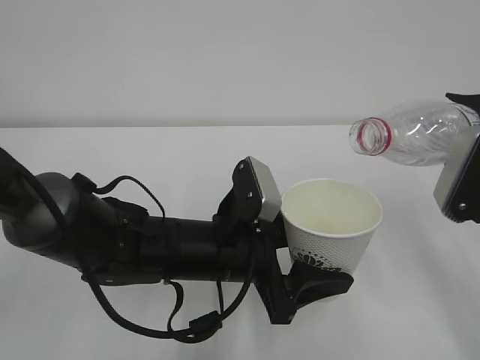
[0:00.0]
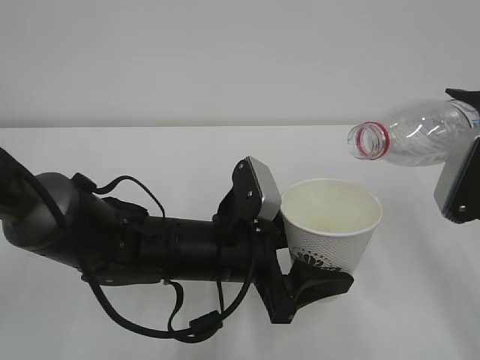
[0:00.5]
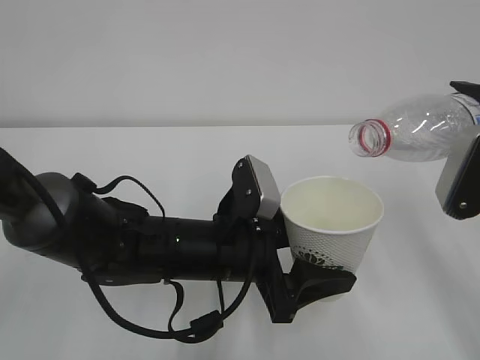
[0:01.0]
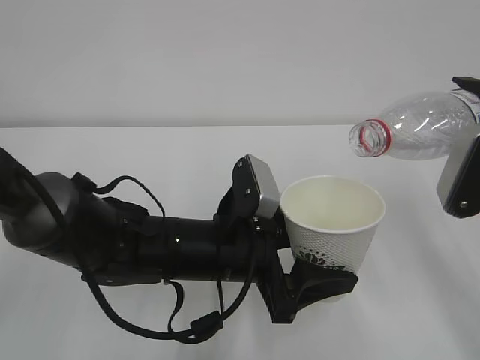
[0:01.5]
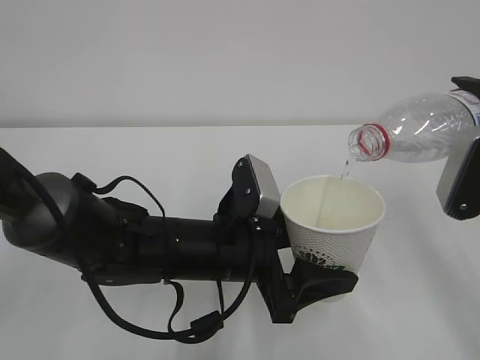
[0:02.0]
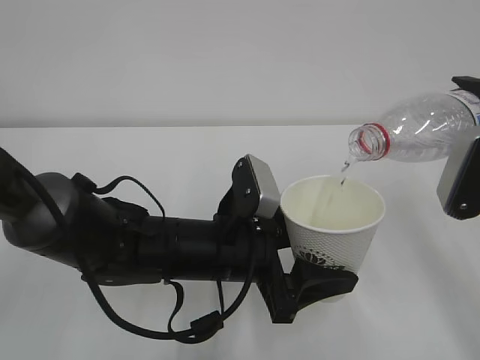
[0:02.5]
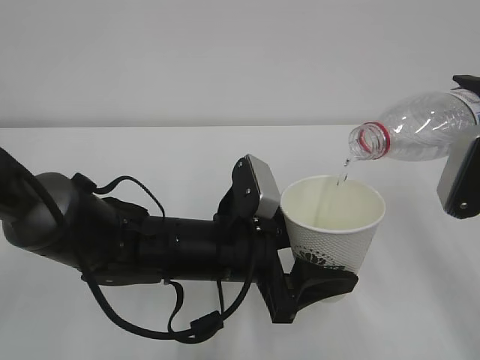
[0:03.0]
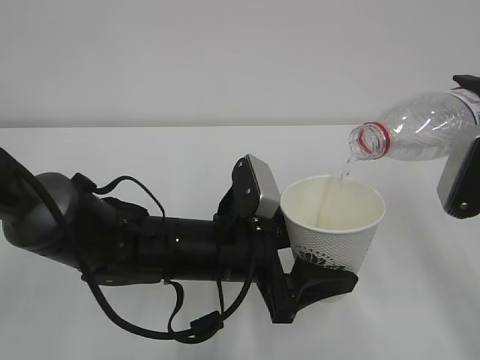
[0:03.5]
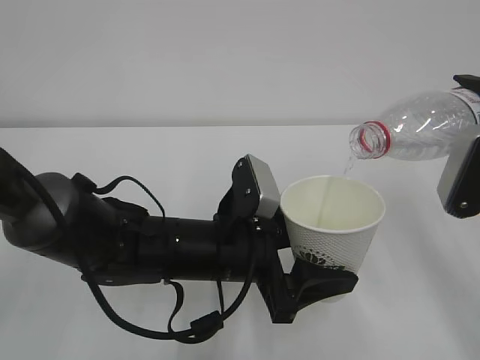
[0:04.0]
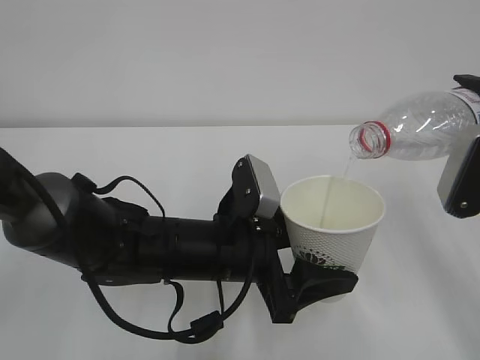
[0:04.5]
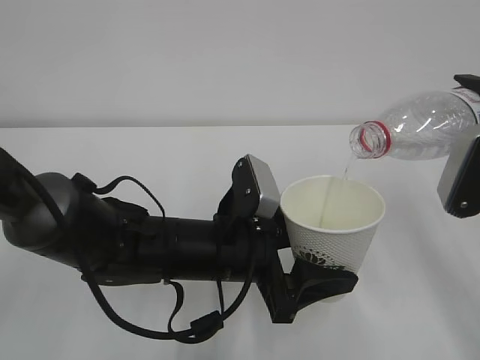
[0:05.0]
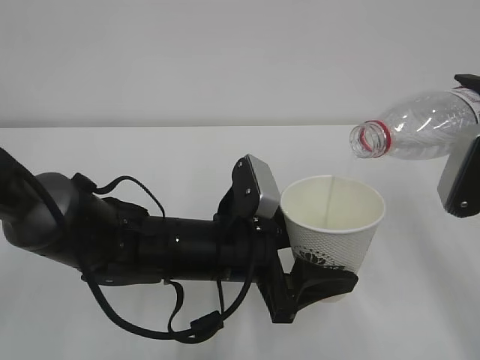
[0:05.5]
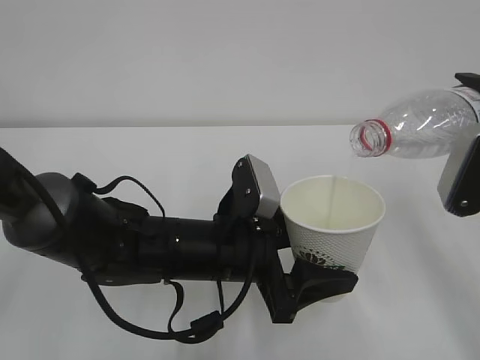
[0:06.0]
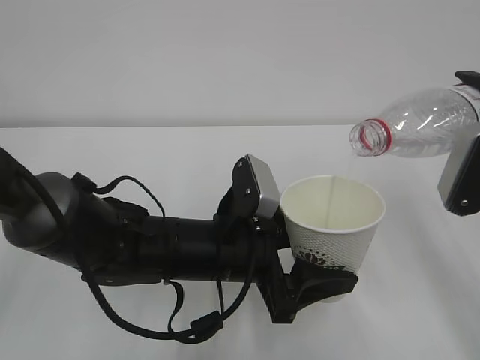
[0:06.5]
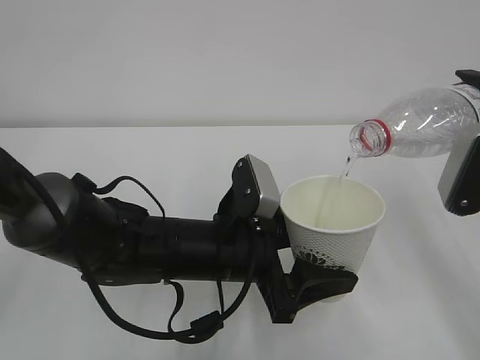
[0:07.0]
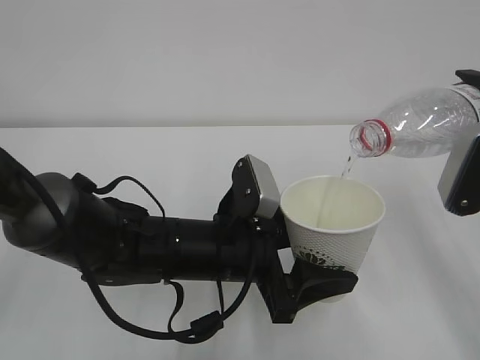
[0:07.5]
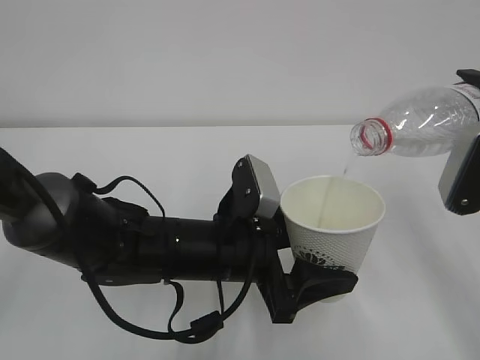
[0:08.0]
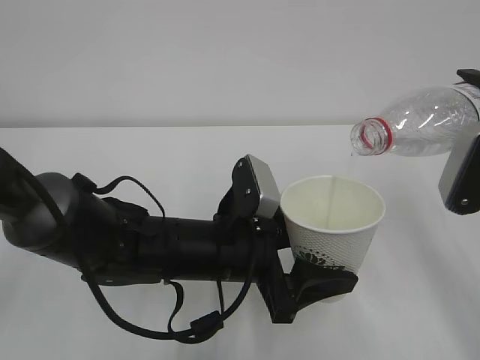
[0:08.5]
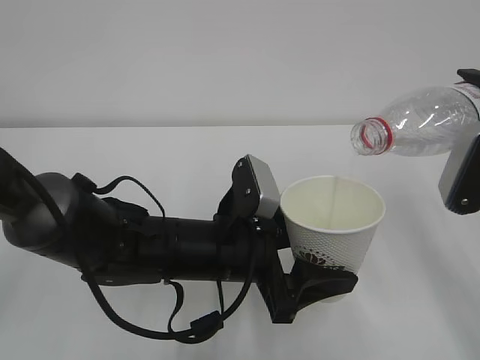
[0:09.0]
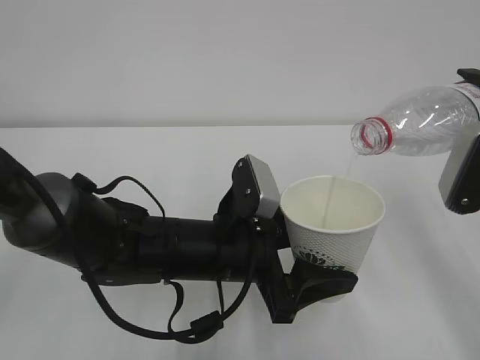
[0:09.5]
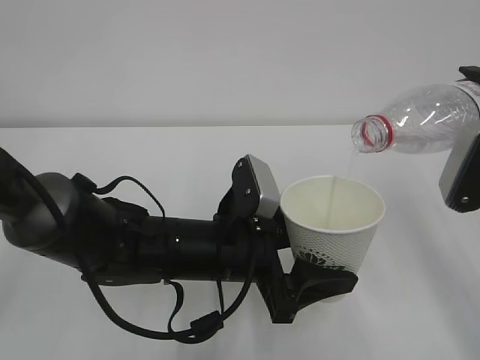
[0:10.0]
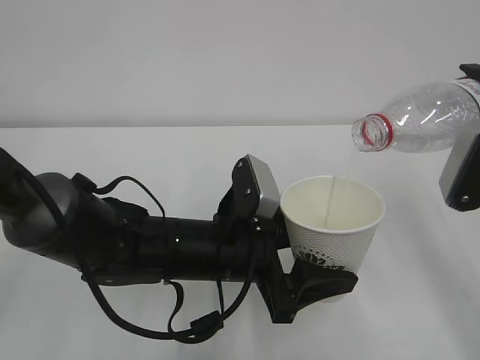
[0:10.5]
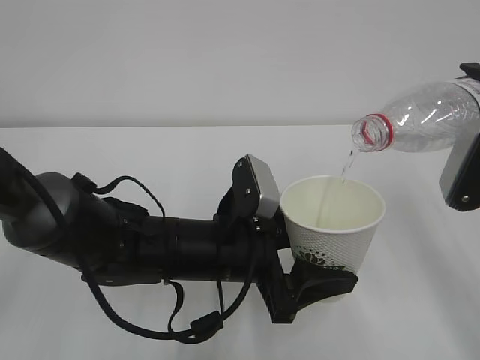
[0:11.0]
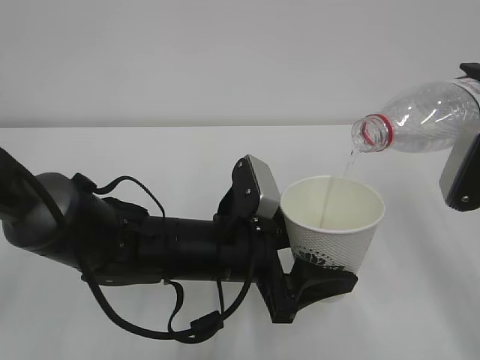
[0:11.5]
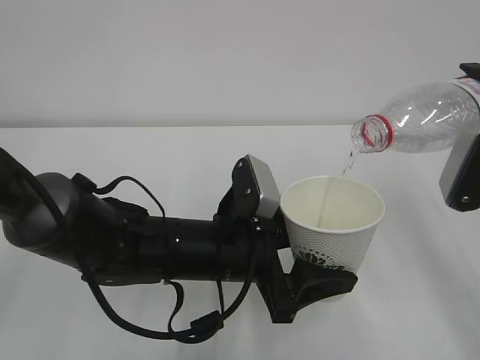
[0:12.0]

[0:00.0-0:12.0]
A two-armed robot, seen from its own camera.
0:00.0 to 0:02.0: The grippers move only a little.
0:02.0 to 0:12.0: The two grippers keep their place.

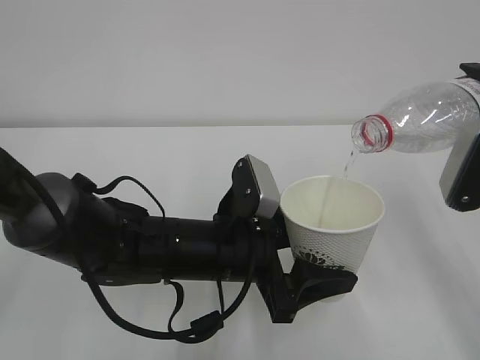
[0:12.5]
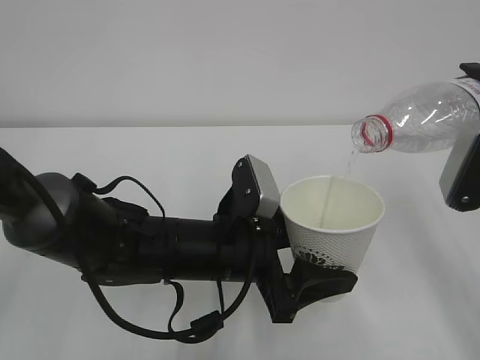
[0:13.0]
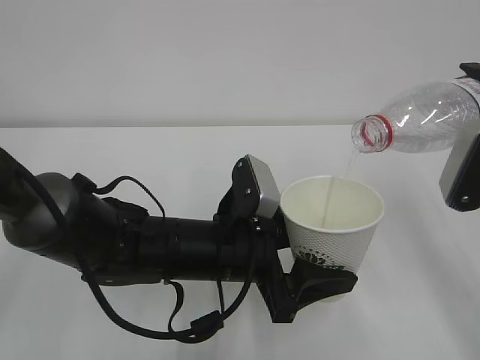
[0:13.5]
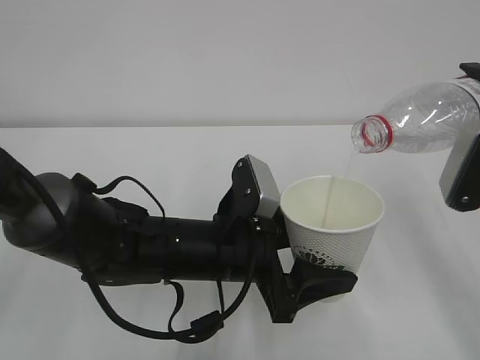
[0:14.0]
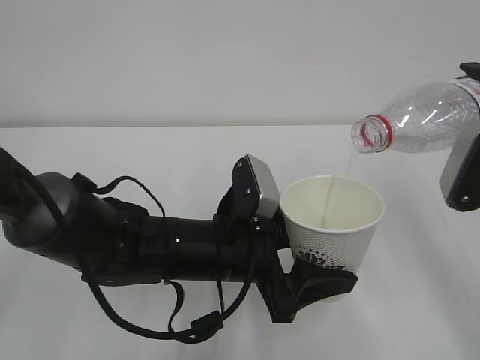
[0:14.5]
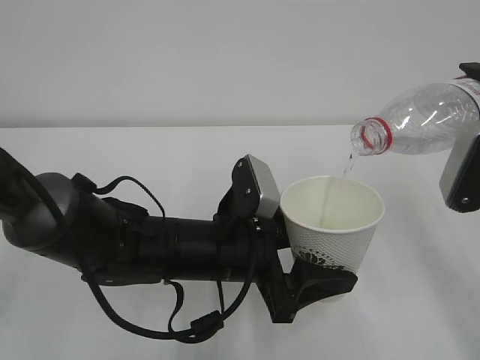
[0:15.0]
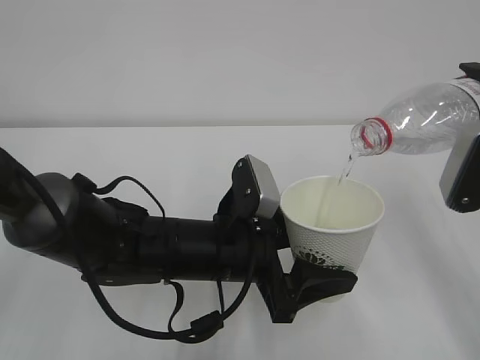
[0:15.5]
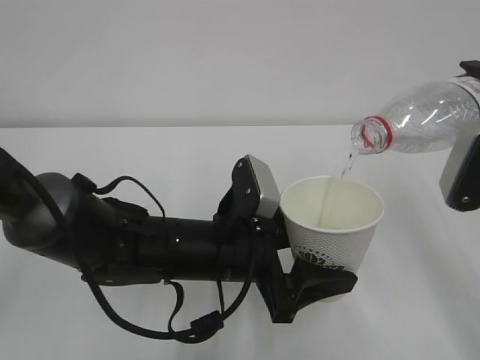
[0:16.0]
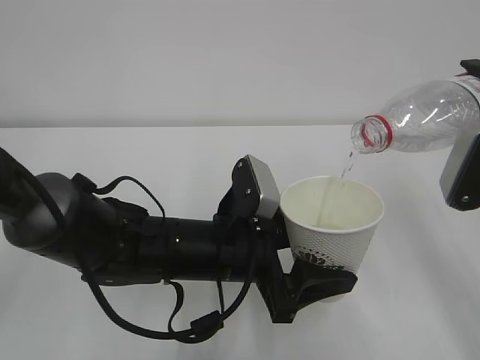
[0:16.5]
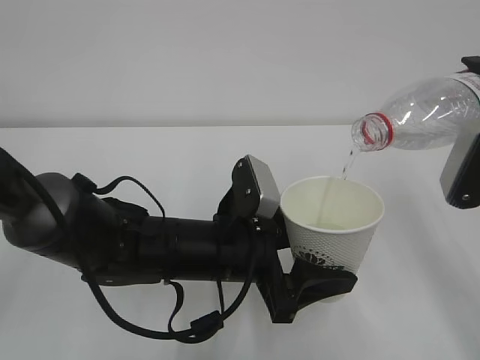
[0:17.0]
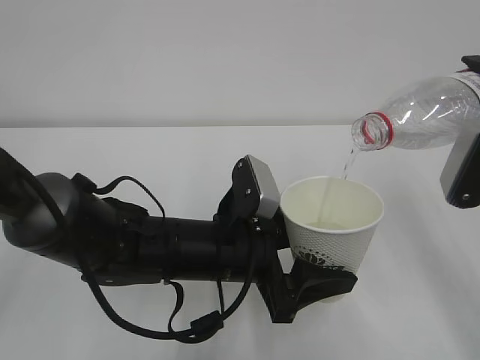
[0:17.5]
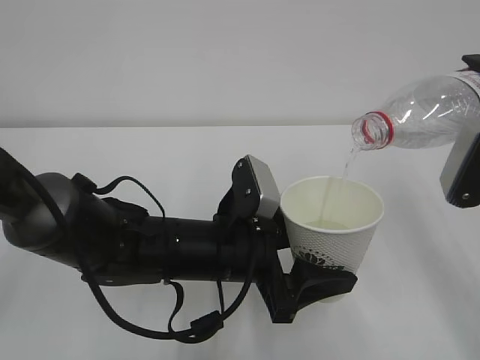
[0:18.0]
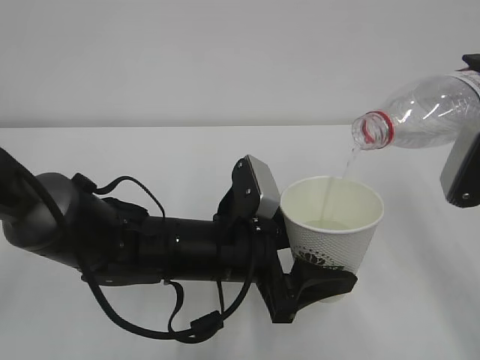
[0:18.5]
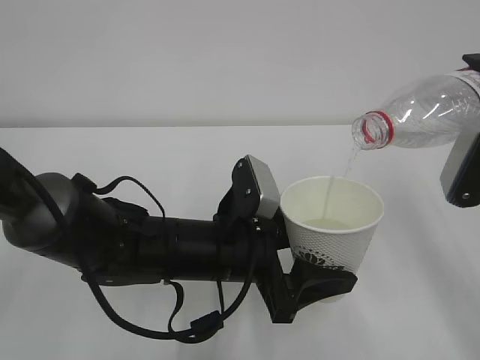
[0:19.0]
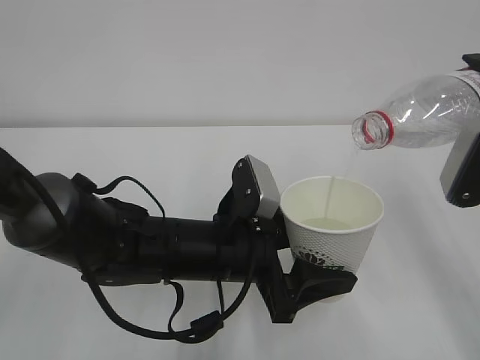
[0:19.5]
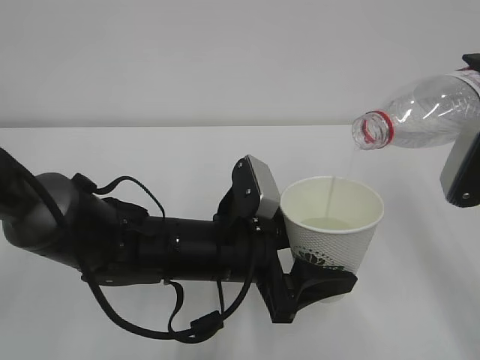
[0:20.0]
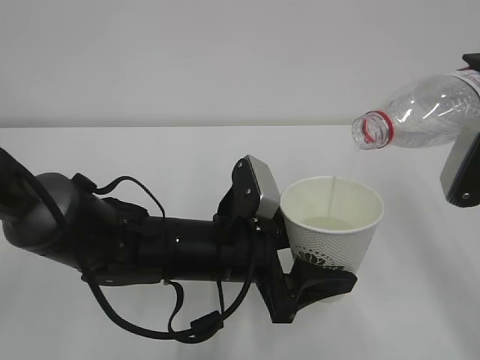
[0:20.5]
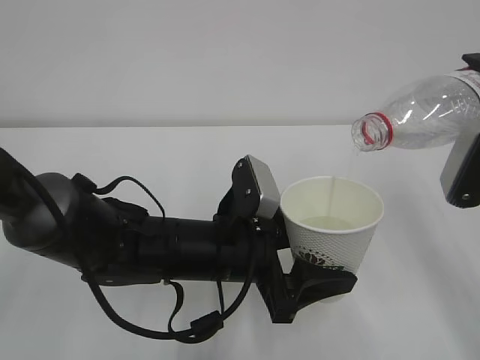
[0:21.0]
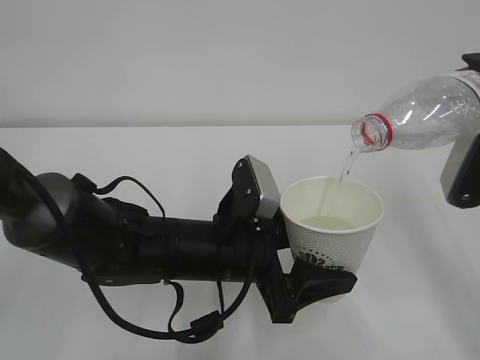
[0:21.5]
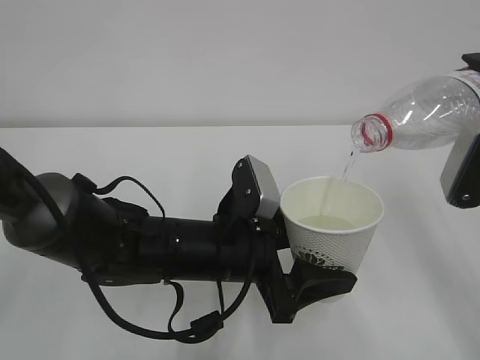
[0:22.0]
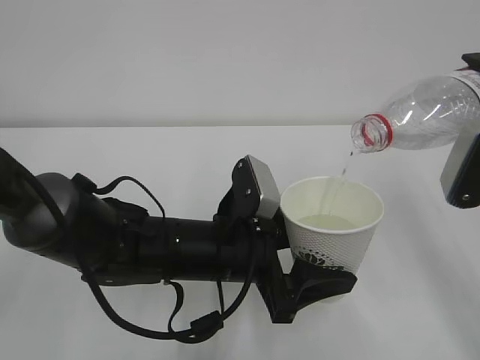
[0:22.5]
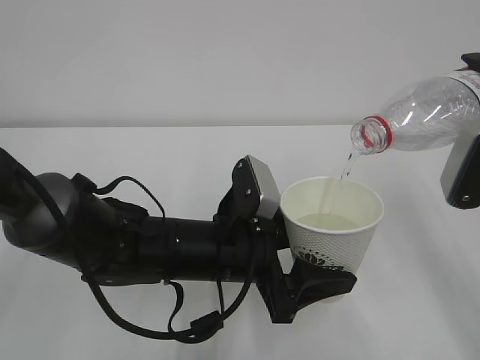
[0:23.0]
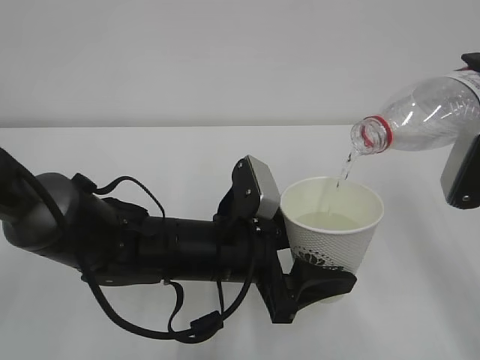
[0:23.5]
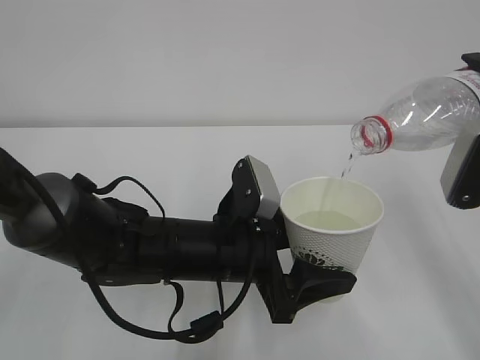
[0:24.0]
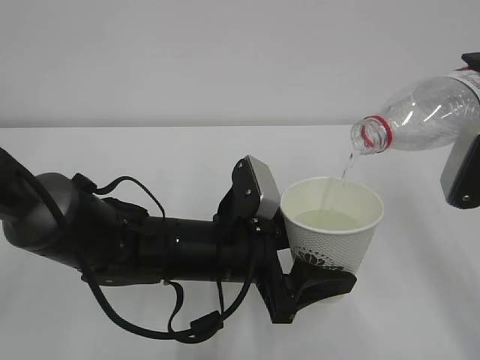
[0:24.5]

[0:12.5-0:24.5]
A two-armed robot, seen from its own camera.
0:12.5 to 0:24.5: Both grippers stay about where they are.

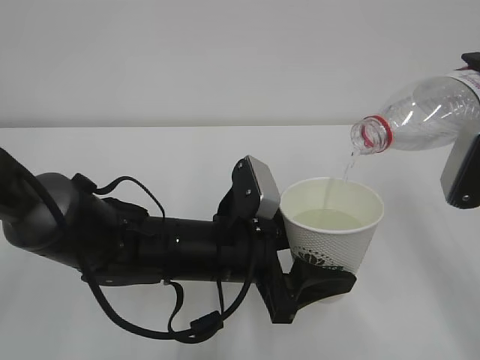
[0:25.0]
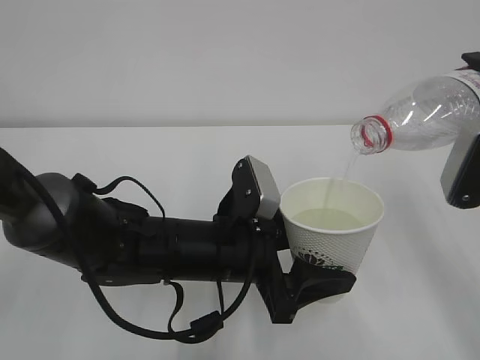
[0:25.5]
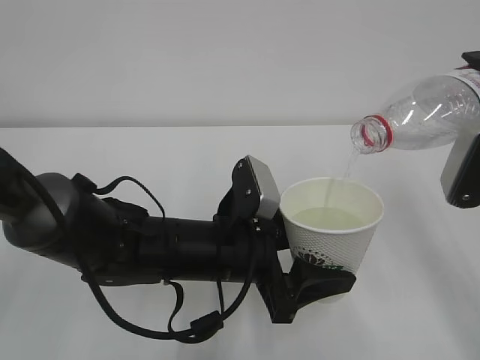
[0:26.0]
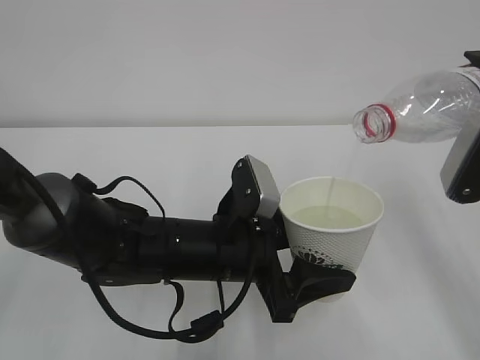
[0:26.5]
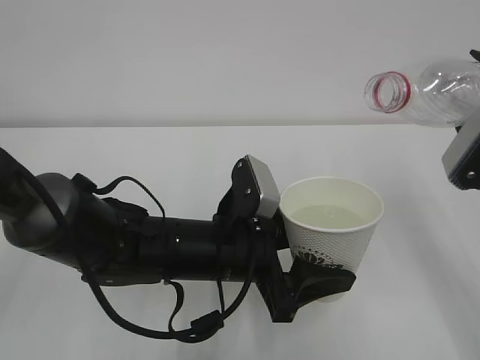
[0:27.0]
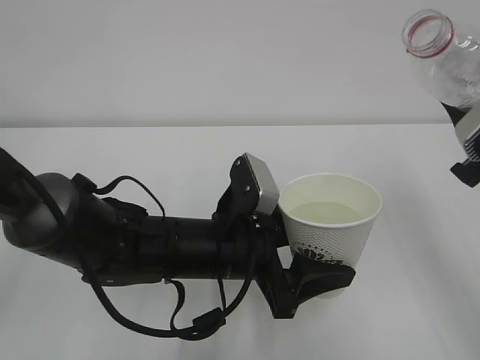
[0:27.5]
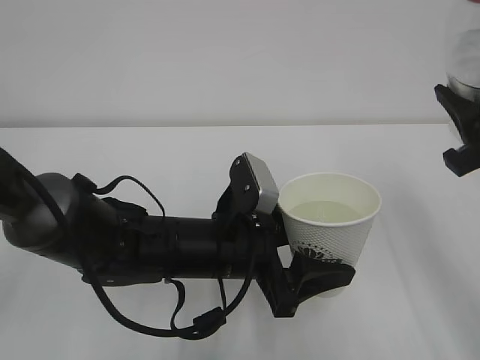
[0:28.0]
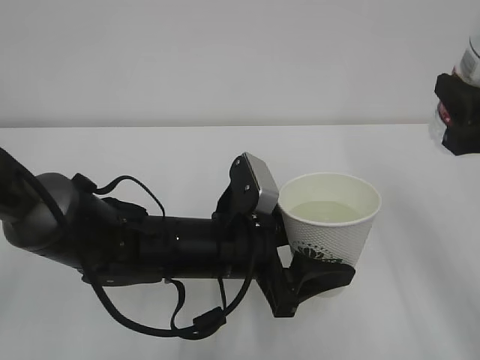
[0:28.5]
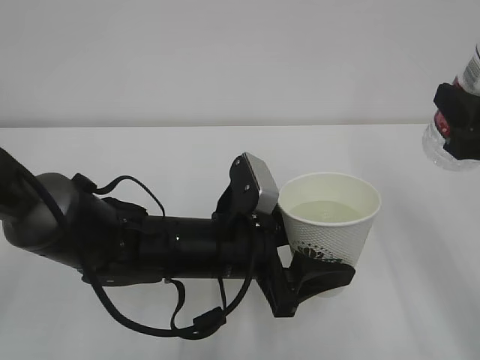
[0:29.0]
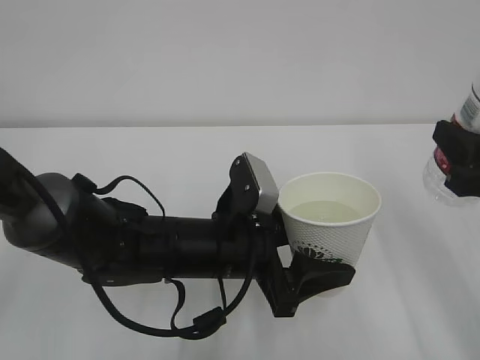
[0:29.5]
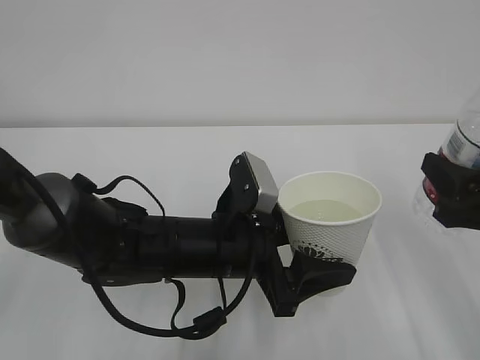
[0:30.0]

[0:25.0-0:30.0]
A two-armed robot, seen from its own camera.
0:27.5 to 0:30.0: The right gripper is displaced downward by about 5 cm.
